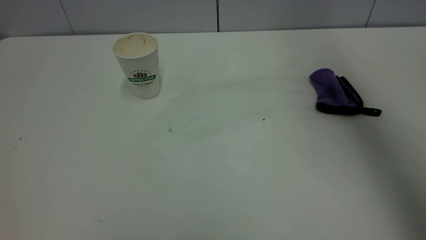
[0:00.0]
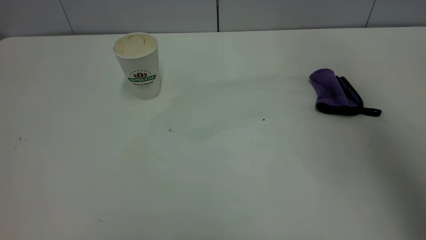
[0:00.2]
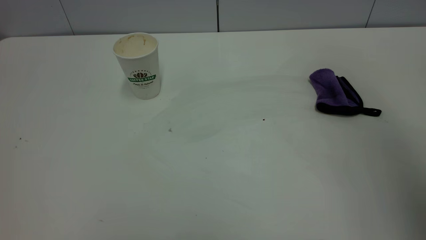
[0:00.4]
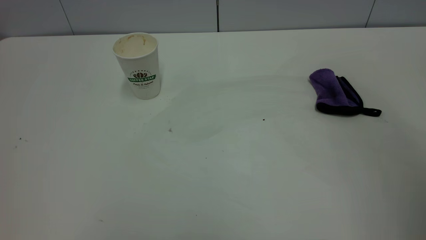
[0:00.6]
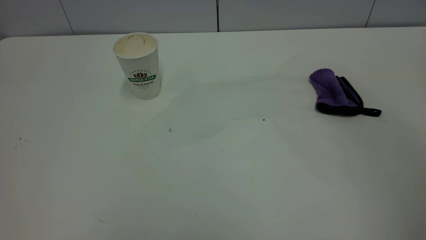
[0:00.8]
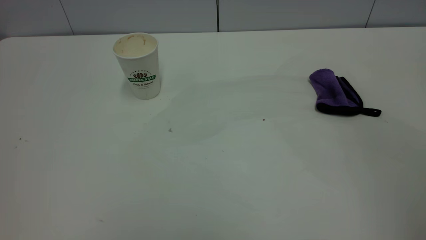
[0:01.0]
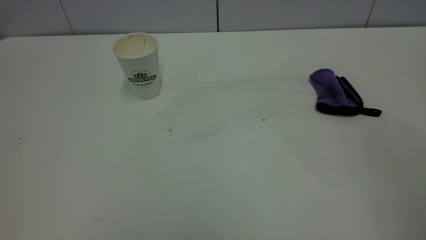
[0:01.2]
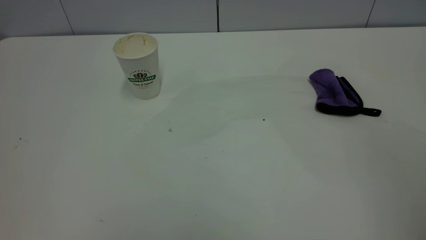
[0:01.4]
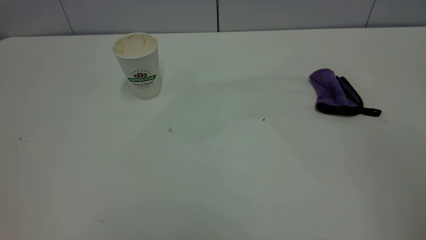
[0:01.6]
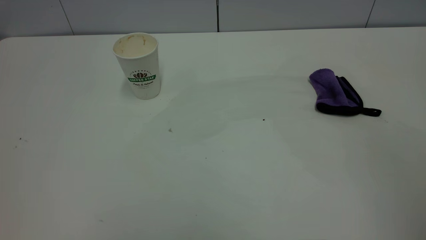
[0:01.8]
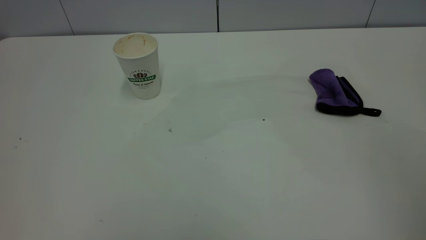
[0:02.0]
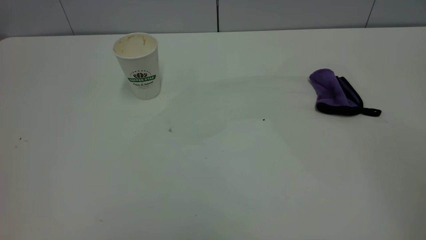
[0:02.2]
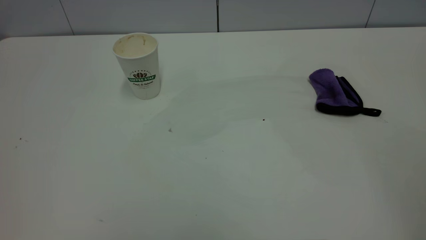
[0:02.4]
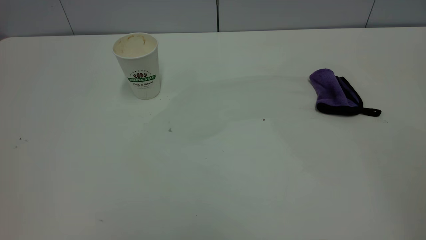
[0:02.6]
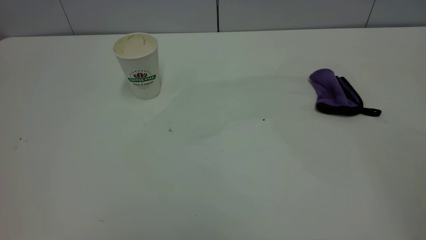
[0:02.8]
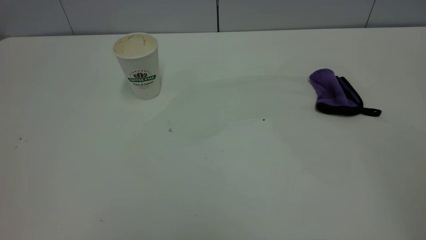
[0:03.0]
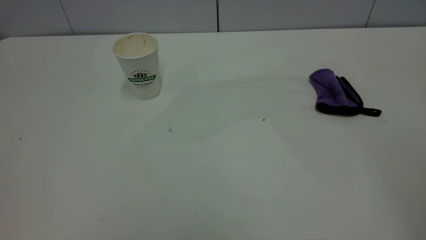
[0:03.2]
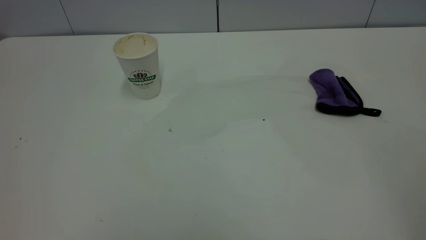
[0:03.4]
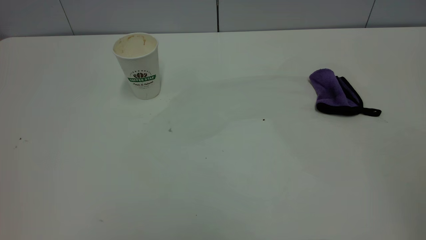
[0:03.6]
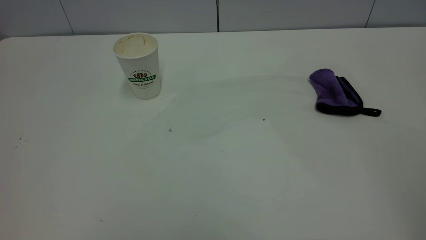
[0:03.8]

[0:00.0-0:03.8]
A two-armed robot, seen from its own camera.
Task of the whole recording: the left gripper pick up the fallen cup and place it upright, the right gripper grasp the purple rag and wipe the coffee stain on the table, the right gripper put the purple rag back in its original position.
0:00.0 to 0:01.2: The right gripper is displaced backward by roughly 30 cm.
